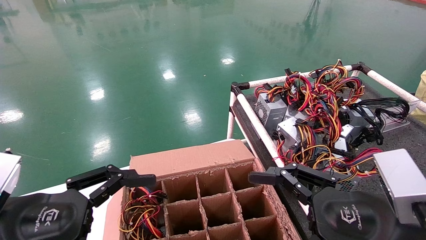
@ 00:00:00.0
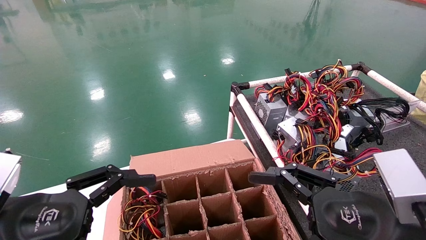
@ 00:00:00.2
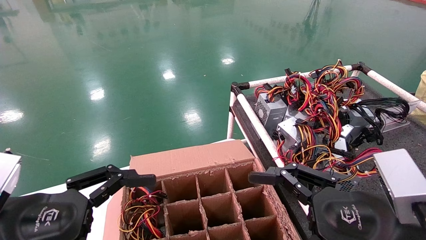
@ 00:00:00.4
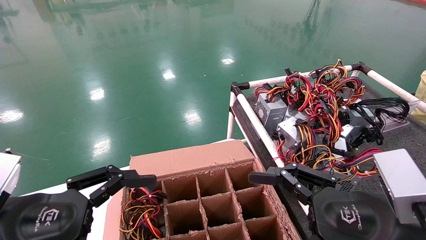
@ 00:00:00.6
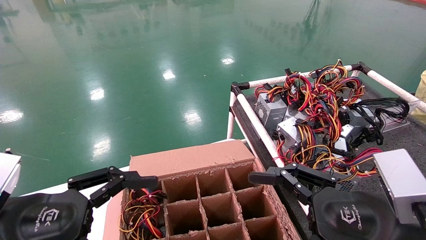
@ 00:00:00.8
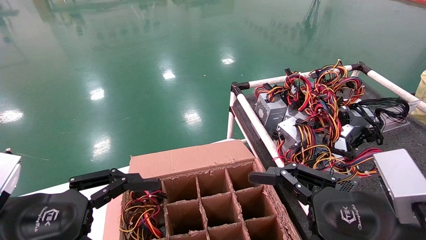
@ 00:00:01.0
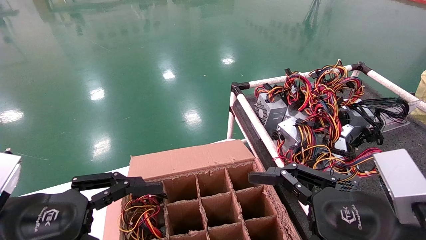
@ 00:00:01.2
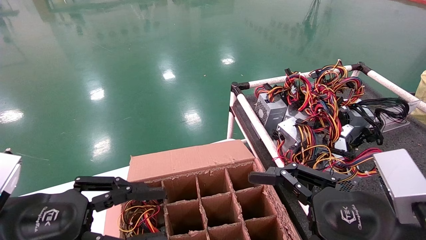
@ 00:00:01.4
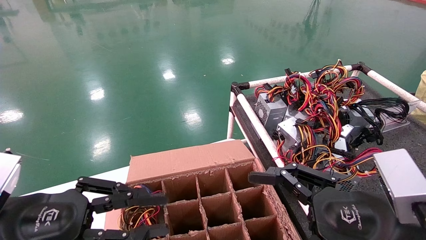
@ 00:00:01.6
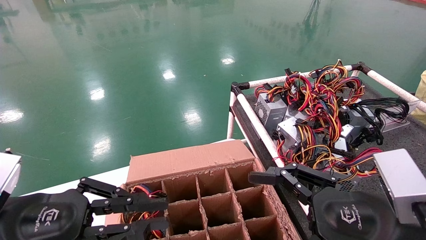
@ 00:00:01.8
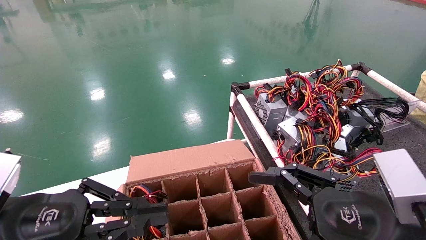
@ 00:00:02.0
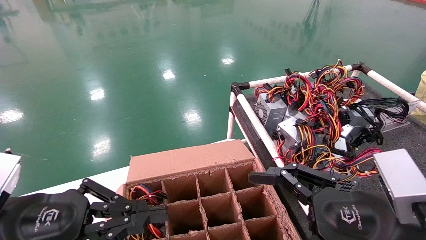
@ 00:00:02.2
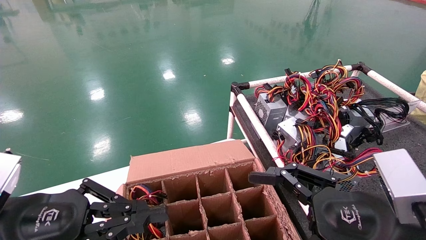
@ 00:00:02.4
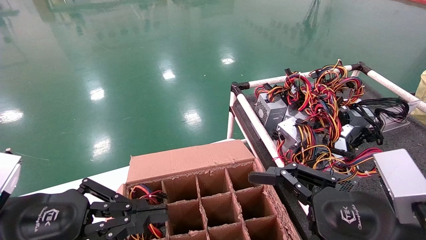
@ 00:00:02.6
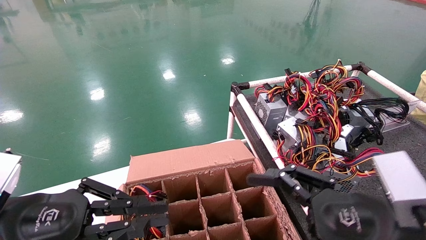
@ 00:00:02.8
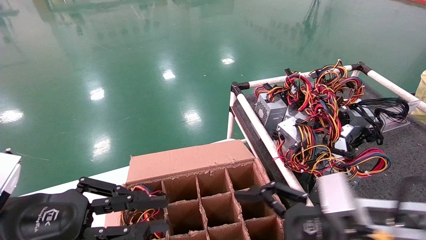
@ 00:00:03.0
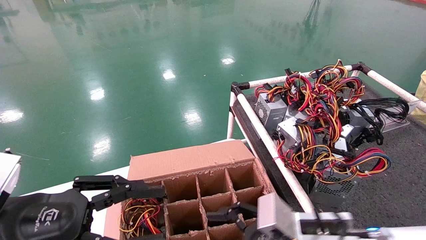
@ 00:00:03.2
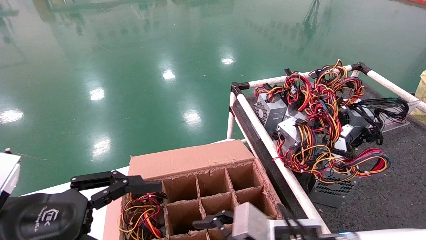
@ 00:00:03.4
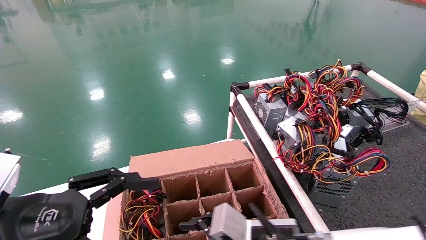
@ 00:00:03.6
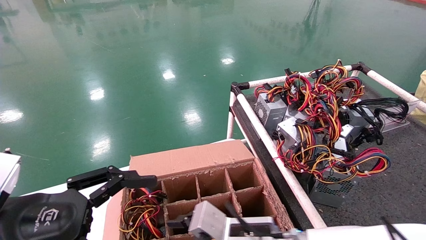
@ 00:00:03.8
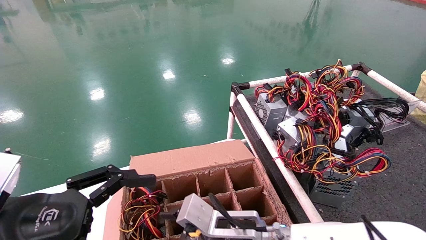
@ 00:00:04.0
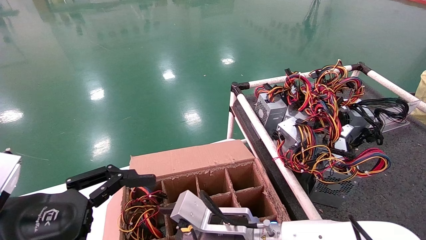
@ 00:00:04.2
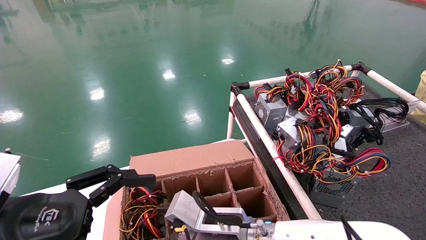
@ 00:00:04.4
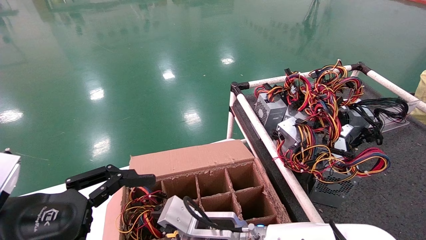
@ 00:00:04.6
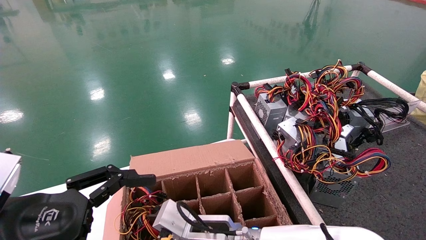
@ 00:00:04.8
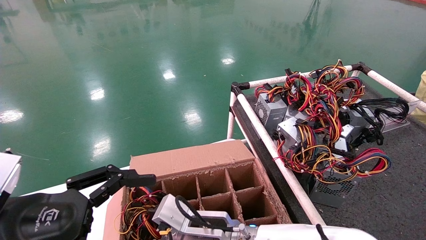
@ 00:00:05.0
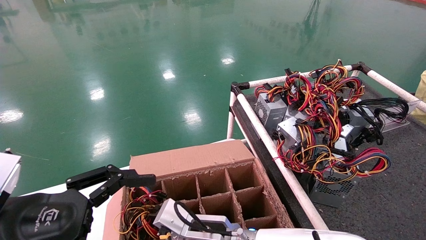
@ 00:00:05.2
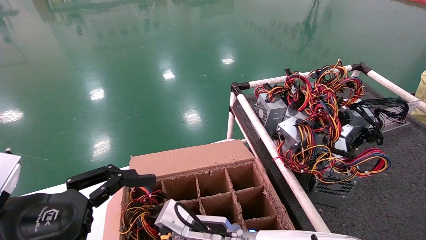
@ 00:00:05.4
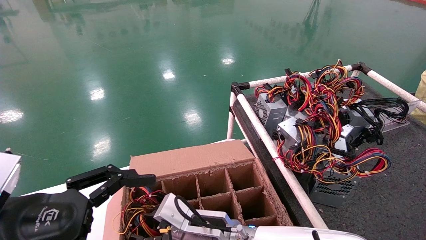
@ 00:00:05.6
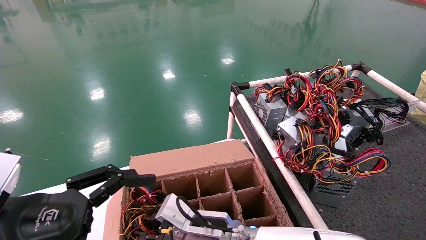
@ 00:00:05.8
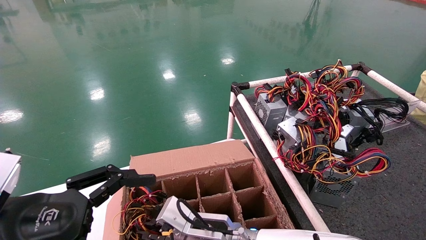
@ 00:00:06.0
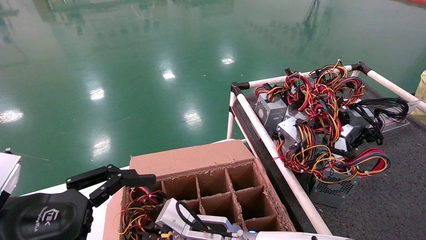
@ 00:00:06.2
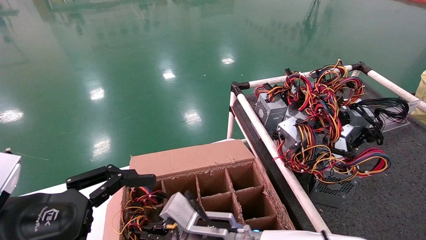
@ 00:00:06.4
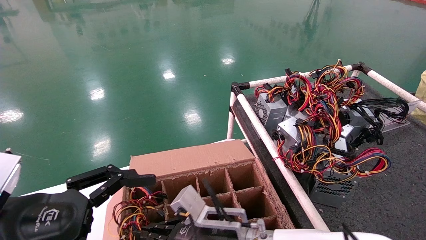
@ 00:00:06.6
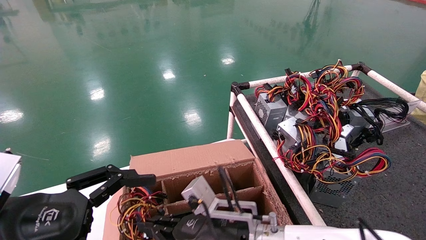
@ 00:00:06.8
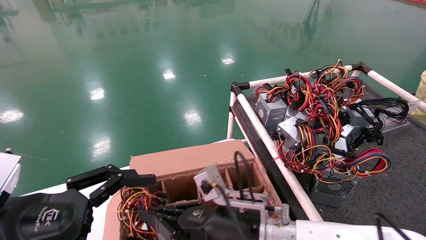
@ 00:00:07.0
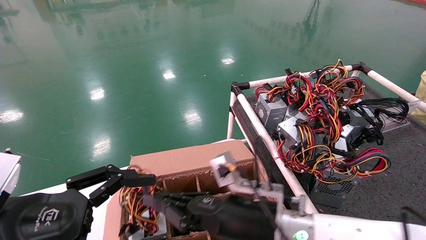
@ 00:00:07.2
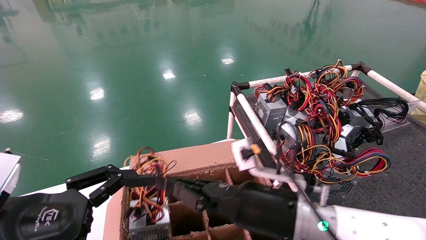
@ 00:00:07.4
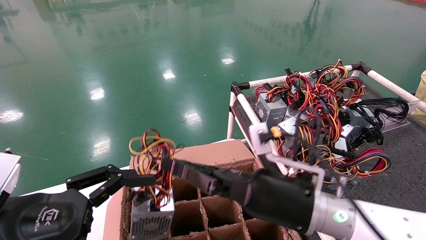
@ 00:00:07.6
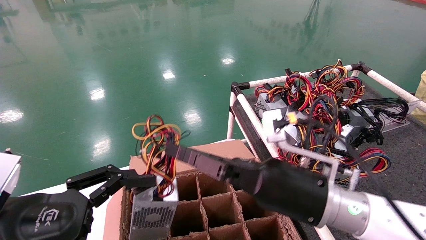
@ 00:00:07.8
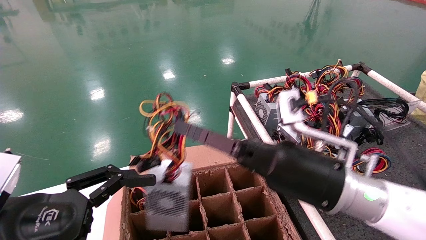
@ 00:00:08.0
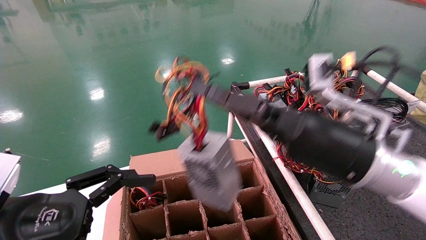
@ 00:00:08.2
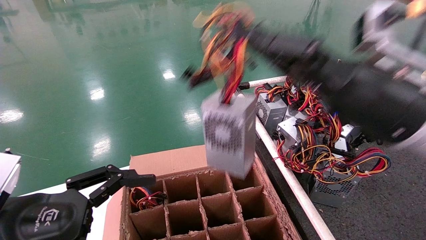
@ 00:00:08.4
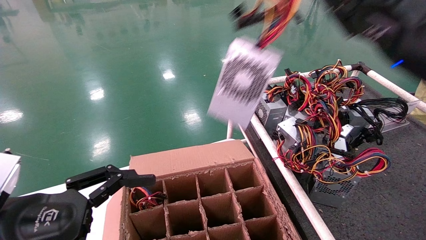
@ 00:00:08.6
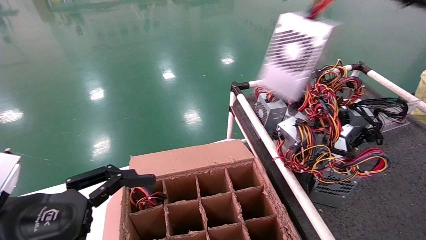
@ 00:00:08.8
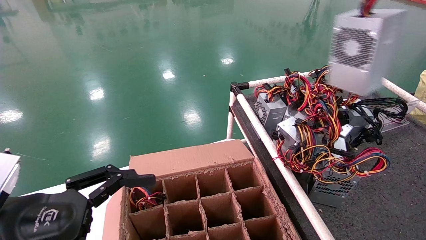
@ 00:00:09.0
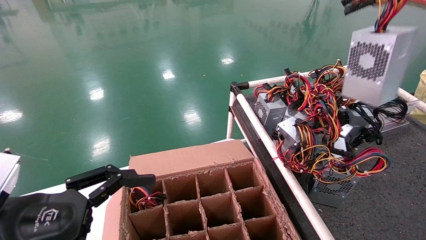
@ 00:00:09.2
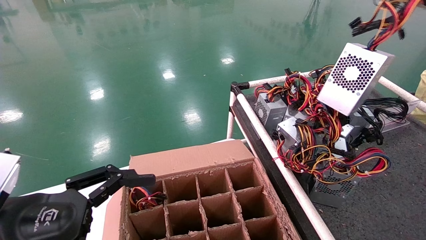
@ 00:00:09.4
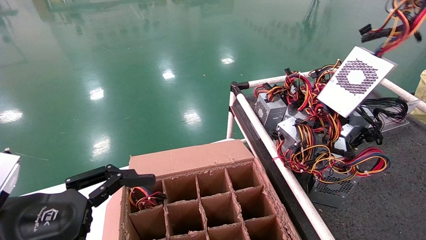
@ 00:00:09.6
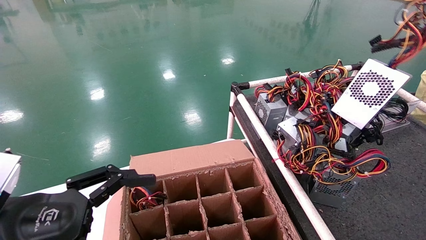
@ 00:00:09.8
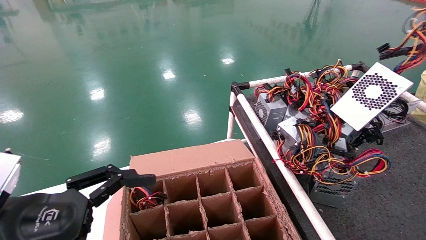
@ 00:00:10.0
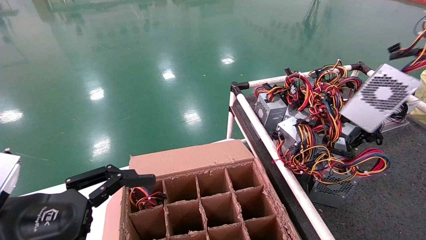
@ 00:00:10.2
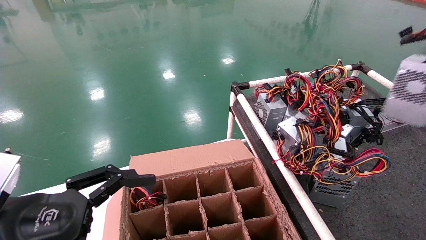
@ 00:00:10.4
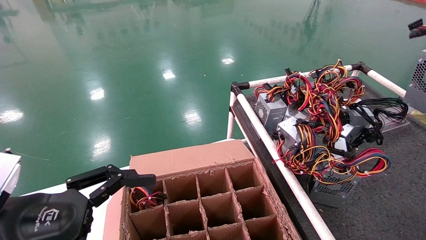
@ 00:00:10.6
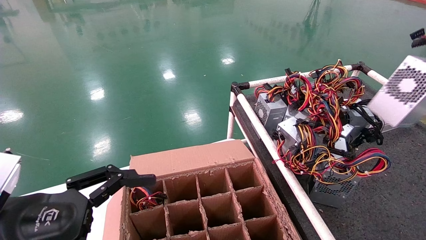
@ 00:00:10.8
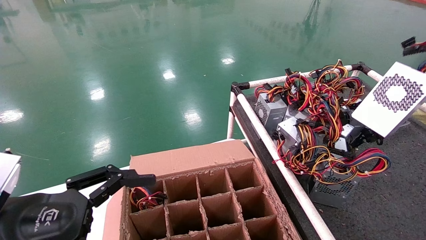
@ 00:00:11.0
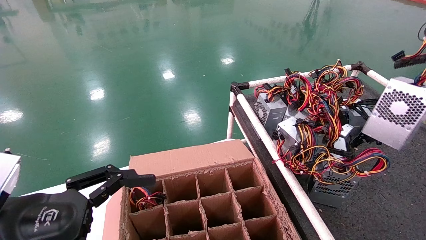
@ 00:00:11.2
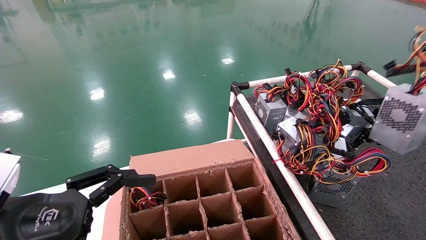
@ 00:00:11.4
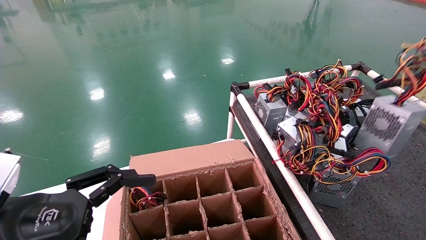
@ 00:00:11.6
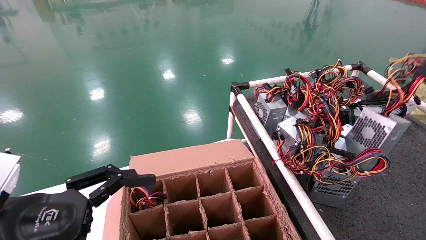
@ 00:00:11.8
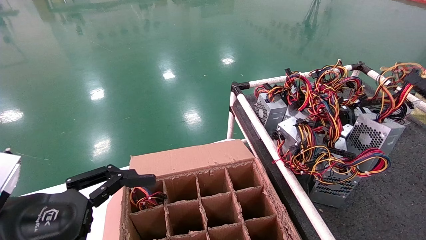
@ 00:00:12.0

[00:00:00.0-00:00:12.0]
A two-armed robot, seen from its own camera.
Step, 00:00:01.2 to 00:00:06.2: Grab and lift the power supply from the large box.
00:00:00.0 to 00:00:01.6: The left gripper closes.
00:00:01.6 to 00:00:03.0: The right gripper changes place by about 5 cm.
00:00:03.0 to 00:00:04.4: The left gripper opens up. Meanwhile the right gripper shifts some 20 cm to the left, forward and downward.
00:00:04.4 to 00:00:06.0: The right gripper closes its fingers.
00:00:06.0 to 00:00:07.6: The right gripper travels upward and to the right by about 15 cm.
00:00:07.6 to 00:00:09.0: The right gripper is displaced upward and to the right by about 35 cm.
00:00:09.0 to 00:00:10.4: The right gripper moves to the right and downward, approximately 20 cm.
00:00:10.4 to 00:00:12.0: The right gripper moves downward, approximately 10 cm.

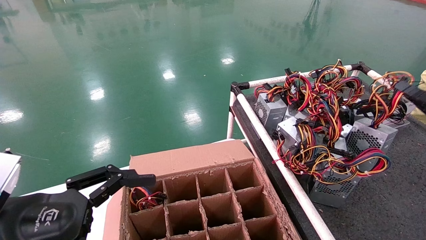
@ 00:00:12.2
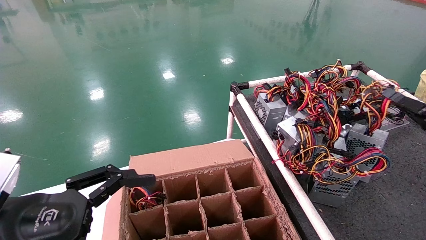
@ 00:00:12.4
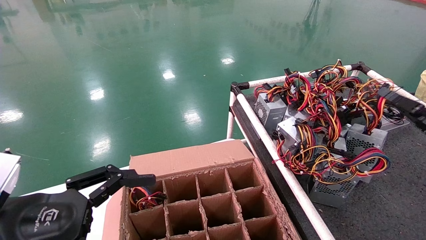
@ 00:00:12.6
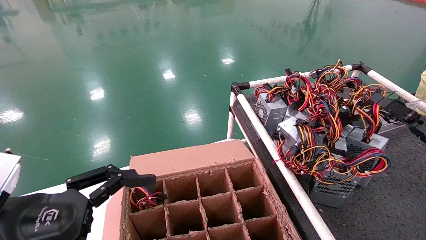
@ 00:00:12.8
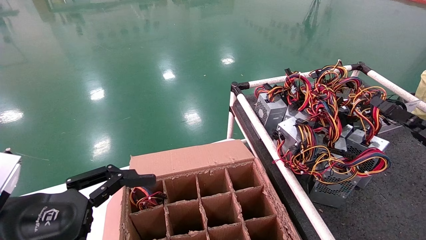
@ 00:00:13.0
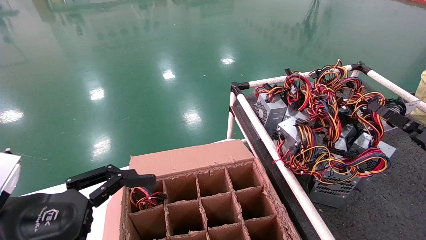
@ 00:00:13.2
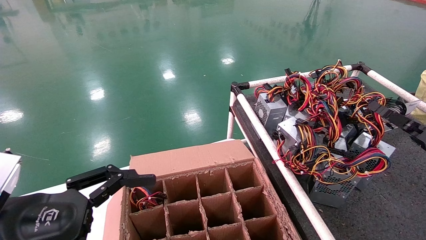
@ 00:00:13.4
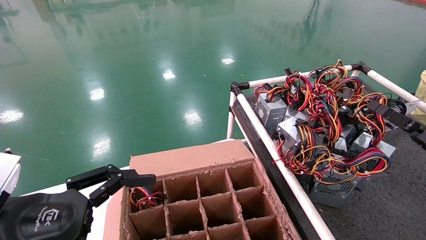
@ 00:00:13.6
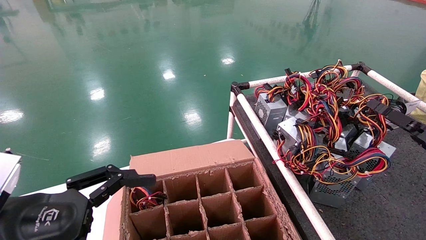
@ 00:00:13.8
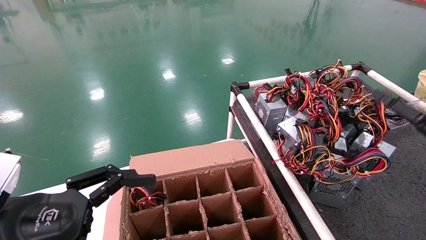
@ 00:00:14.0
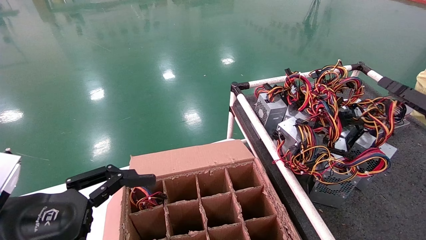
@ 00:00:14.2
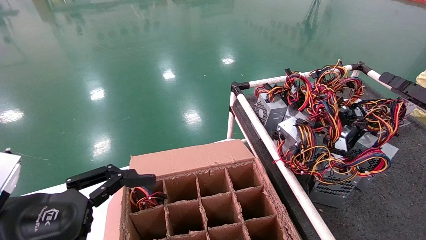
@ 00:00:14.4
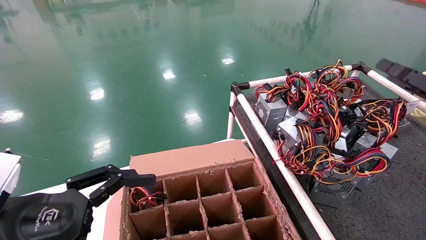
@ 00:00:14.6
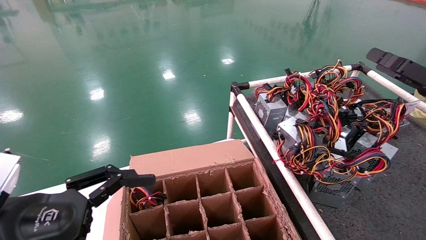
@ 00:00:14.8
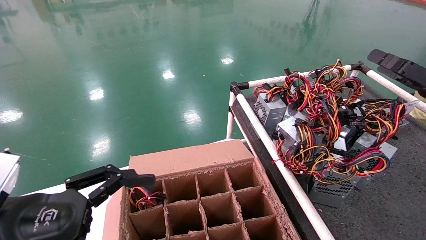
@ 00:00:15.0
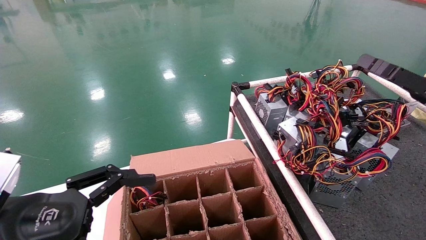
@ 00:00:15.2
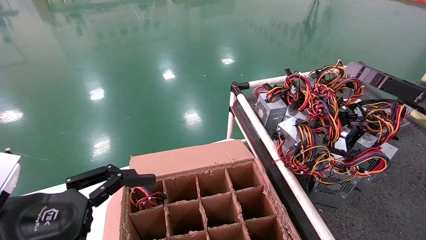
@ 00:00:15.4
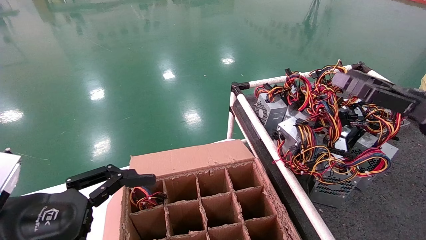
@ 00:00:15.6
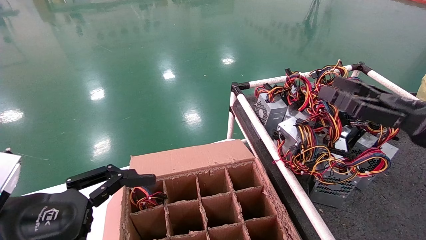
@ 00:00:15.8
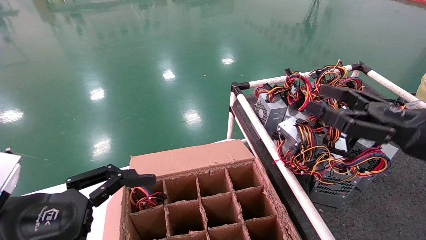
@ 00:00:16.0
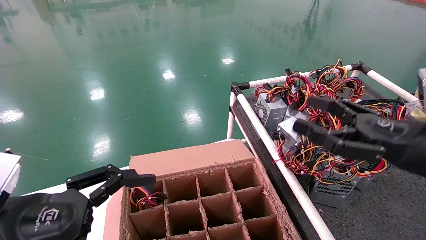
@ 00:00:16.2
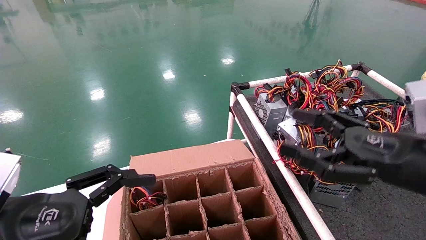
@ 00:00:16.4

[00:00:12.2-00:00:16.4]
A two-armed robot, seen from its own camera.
00:00:12.2 to 00:00:13.6: The grippers stay close to where they were, moving slightly.
00:00:13.6 to 00:00:15.0: The right gripper goes about 10 cm upward, and opens its fingers.
00:00:15.0 to 00:00:16.4: The right gripper moves to the left, some 10 cm.
